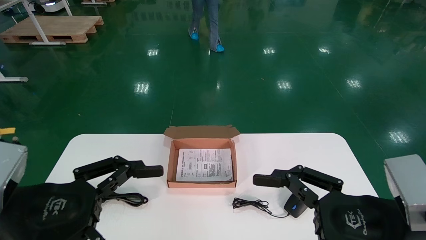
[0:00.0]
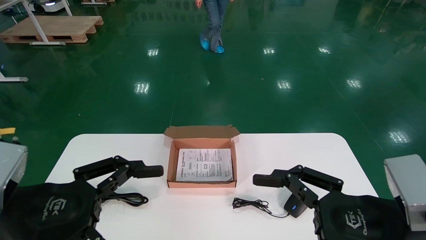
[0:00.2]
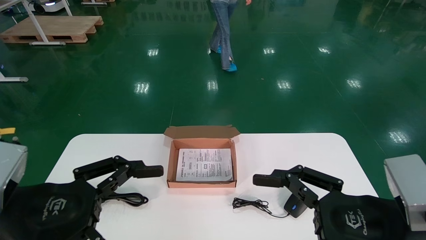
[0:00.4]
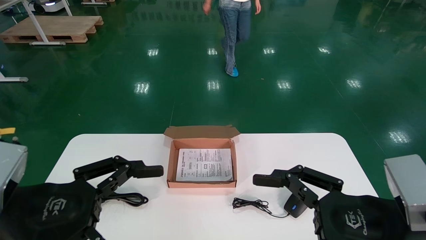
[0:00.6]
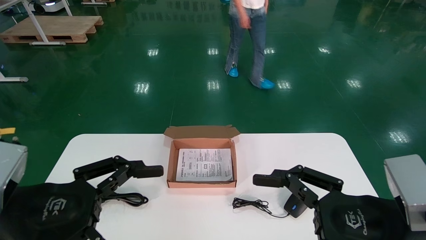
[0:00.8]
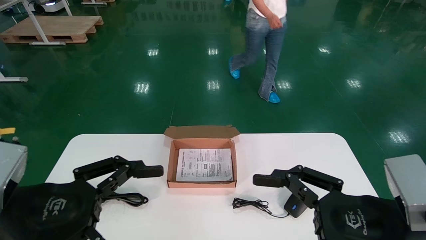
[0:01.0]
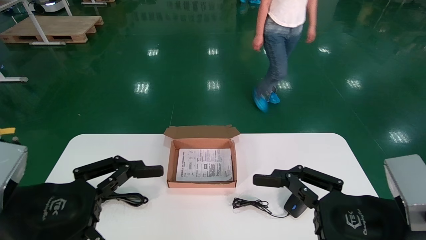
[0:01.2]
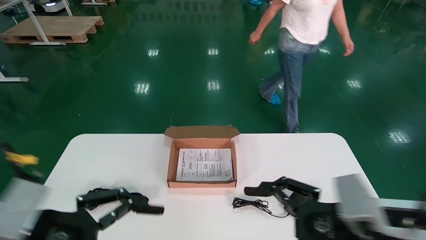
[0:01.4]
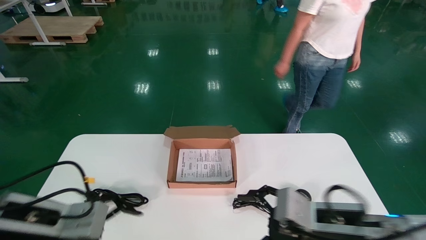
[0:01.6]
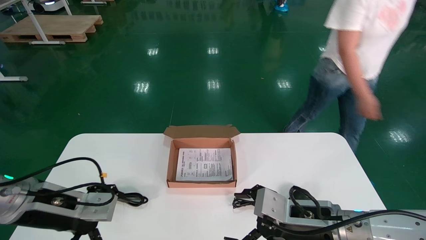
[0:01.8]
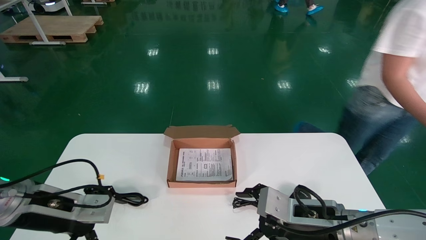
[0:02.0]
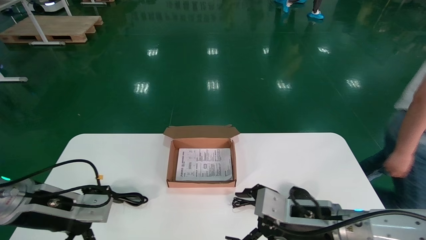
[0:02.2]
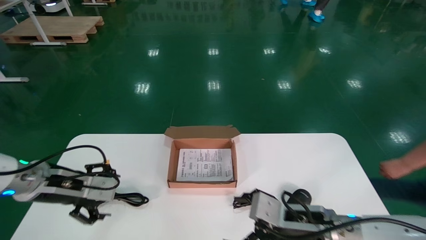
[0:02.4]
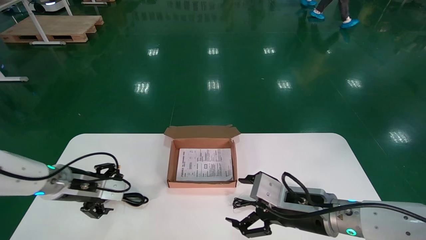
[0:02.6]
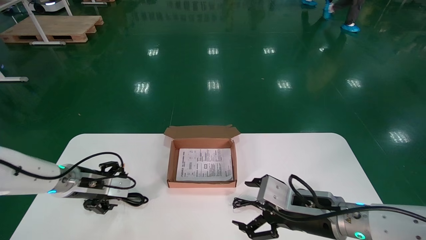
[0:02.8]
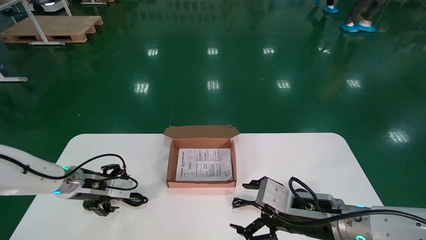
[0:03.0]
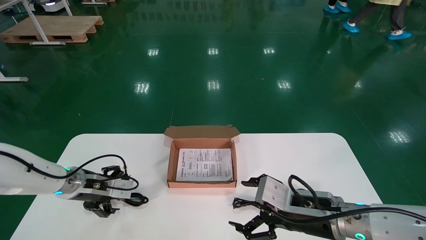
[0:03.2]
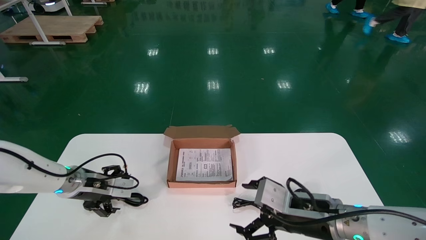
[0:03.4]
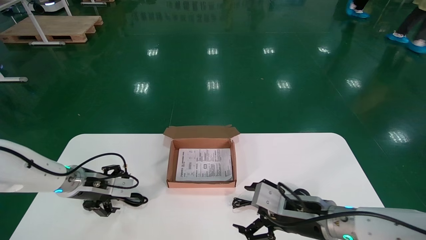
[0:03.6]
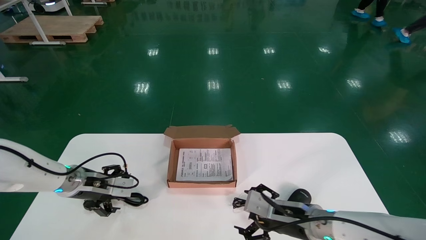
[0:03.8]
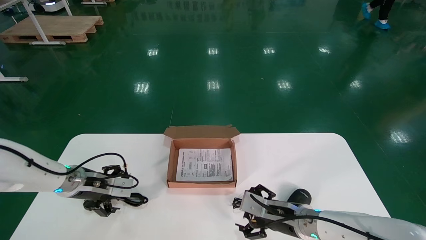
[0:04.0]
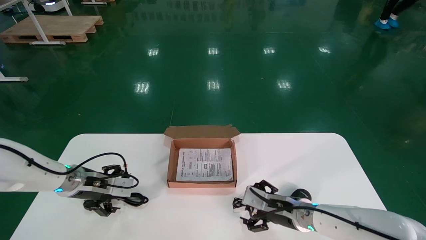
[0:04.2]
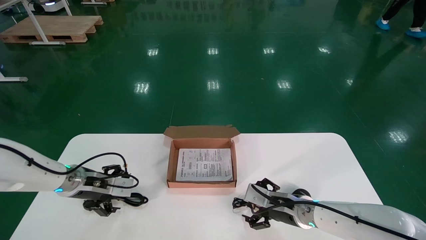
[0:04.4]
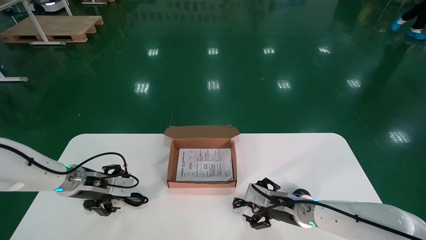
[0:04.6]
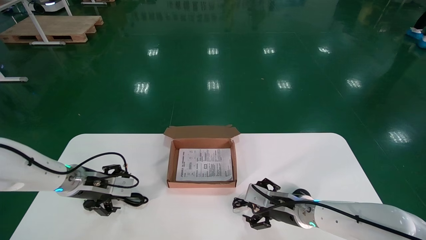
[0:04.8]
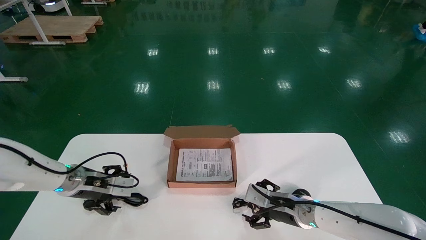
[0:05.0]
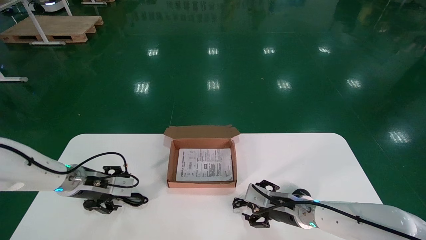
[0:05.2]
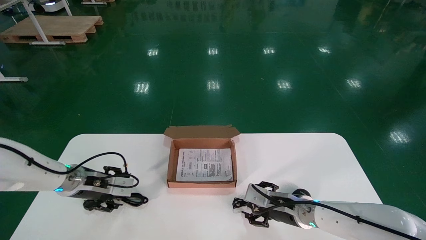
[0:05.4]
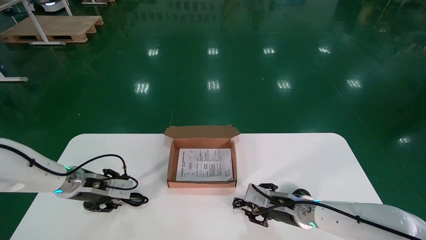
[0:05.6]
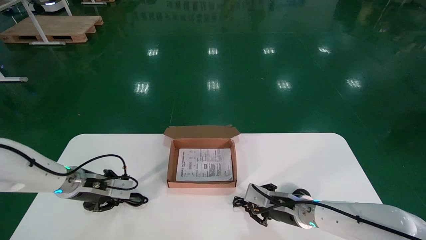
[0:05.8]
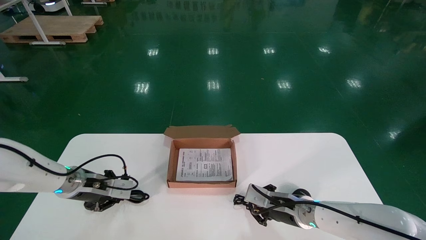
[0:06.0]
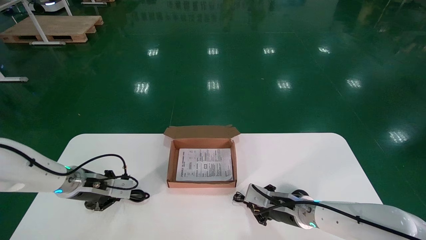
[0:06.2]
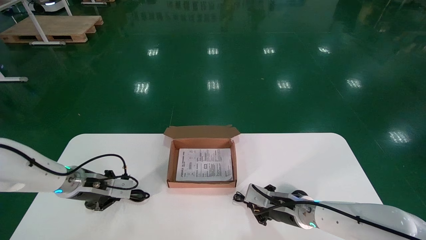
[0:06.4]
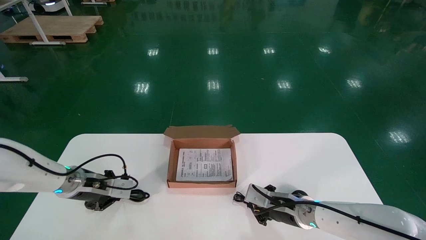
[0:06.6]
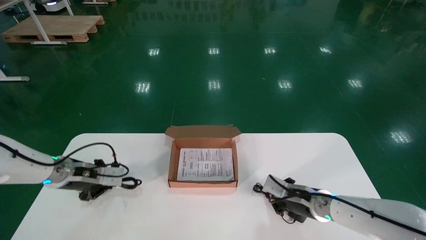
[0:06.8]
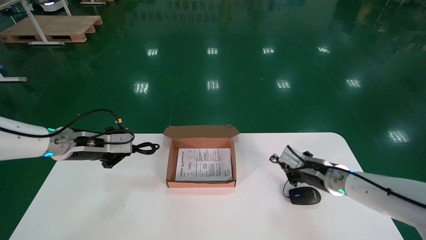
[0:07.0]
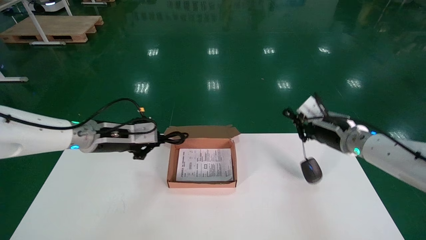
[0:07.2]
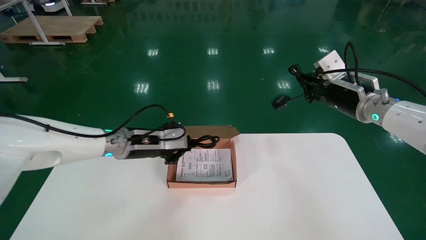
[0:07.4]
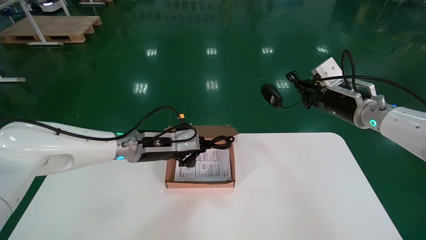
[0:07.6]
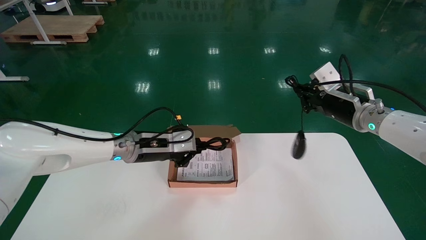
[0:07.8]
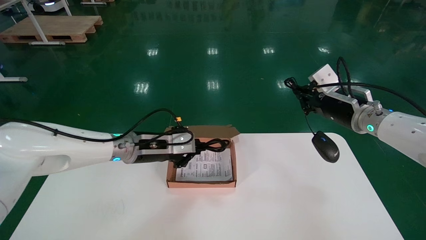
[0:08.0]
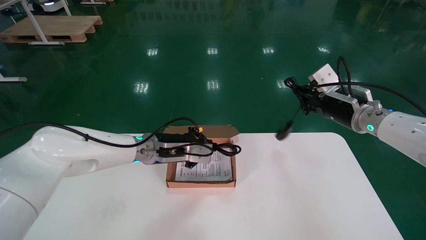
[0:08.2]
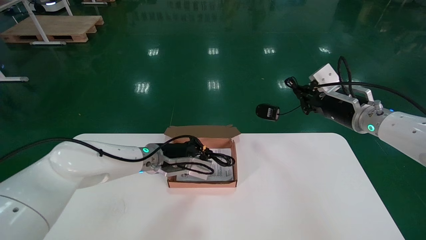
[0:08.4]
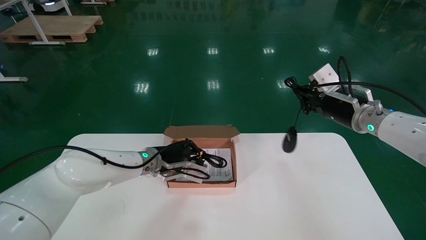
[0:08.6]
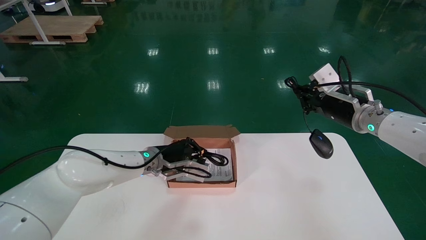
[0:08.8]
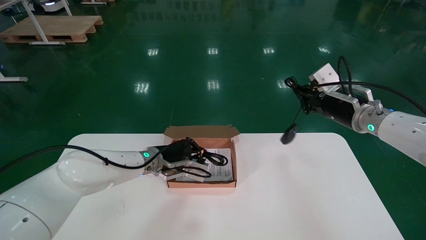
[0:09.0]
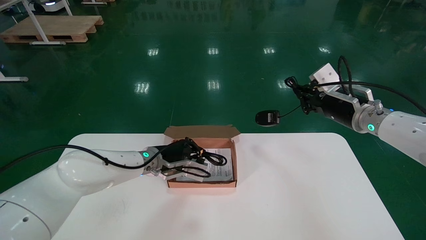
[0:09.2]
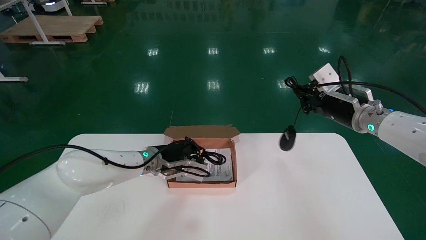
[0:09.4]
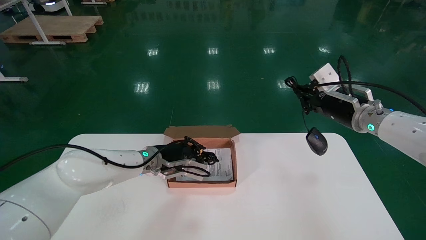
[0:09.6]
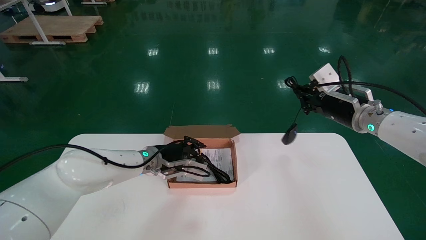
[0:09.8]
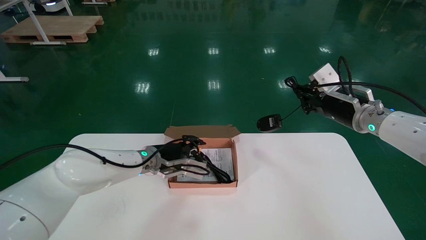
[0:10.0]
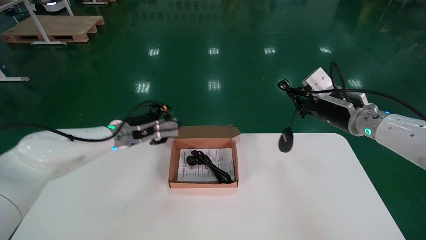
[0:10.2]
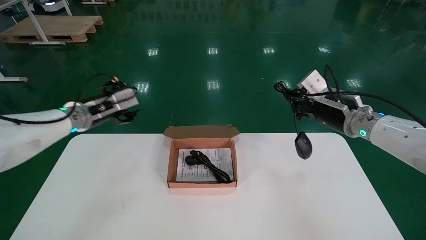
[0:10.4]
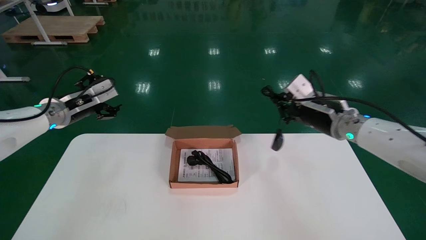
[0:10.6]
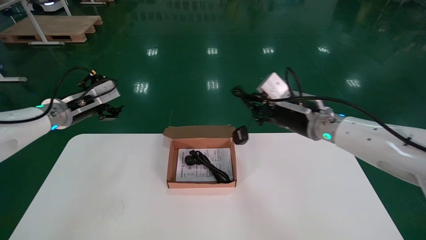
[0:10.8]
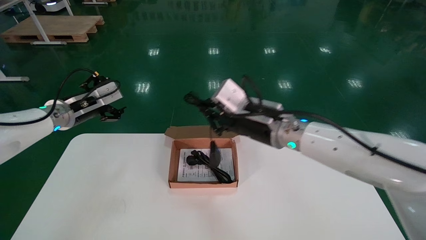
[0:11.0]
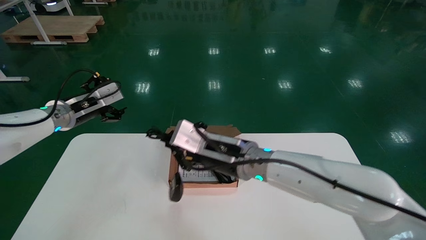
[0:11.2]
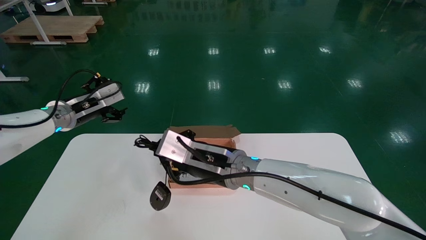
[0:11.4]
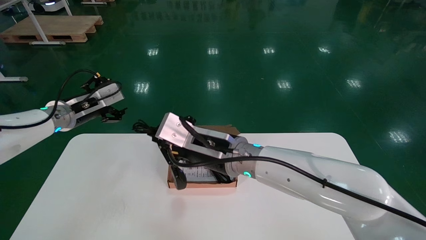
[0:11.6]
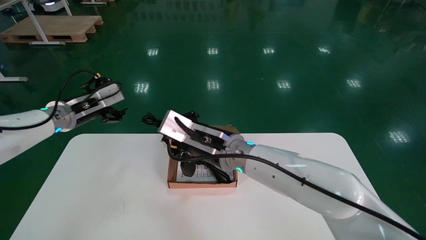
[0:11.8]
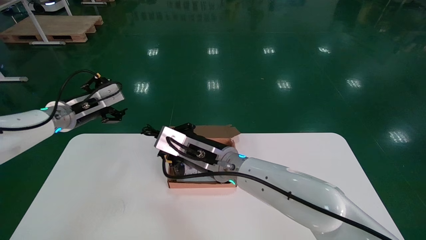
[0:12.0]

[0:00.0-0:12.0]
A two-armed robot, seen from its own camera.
Step, 0:01.6 to 0:06.2: Simultaneously pick up the mouse and power cord from the accessory packaging area.
0:00.0 to 0:01.6: The grippers both shift forward and downward by roughly 10 cm.
0:01.6 to 0:03.0: The left gripper shifts roughly 15 cm forward.
0:03.0 to 0:04.4: The right gripper travels forward and downward by some 15 cm.
0:04.4 to 0:06.0: The left gripper closes its fingers. The right gripper closes its fingers.
0:06.0 to 0:07.6: The left gripper travels to the right and upward by some 15 cm, while the right gripper goes some 25 cm upward and to the right.
0:07.6 to 0:09.0: The left gripper heads downward, covering some 5 cm.
0:09.0 to 0:10.4: The left gripper moves to the left and upward, some 20 cm, and opens its fingers.
0:10.4 to 0:12.0: The right gripper travels to the left by about 25 cm.

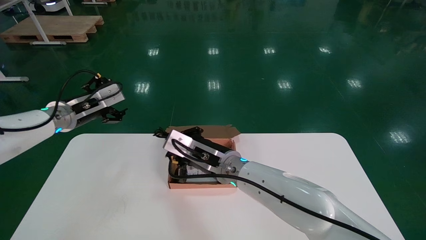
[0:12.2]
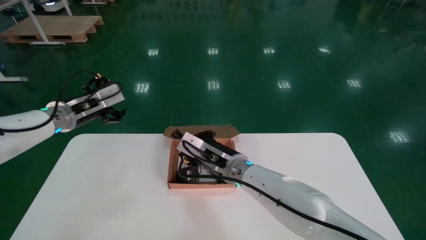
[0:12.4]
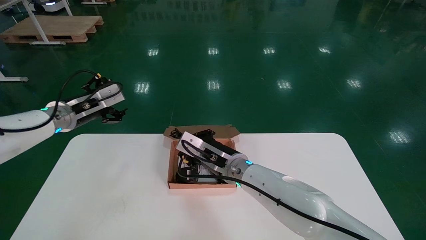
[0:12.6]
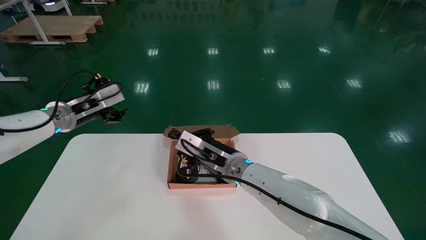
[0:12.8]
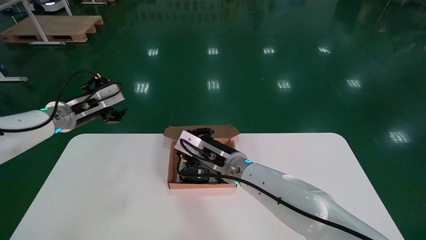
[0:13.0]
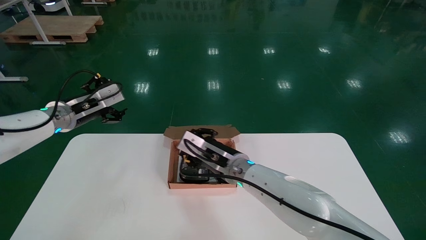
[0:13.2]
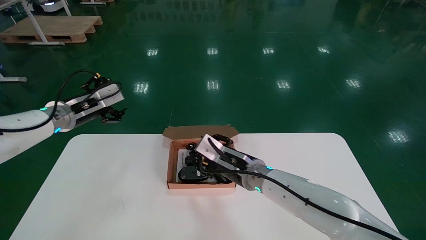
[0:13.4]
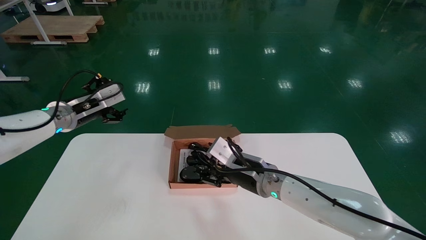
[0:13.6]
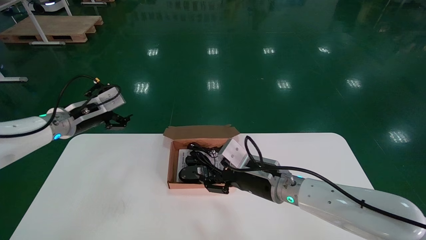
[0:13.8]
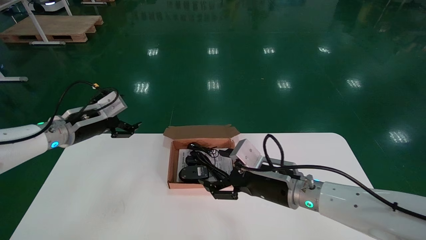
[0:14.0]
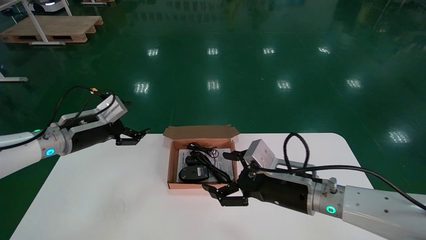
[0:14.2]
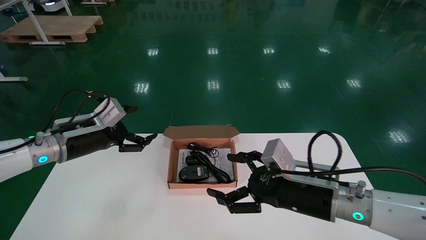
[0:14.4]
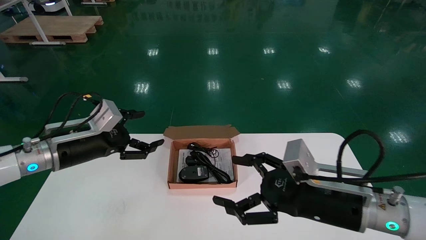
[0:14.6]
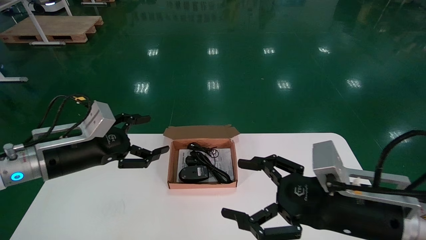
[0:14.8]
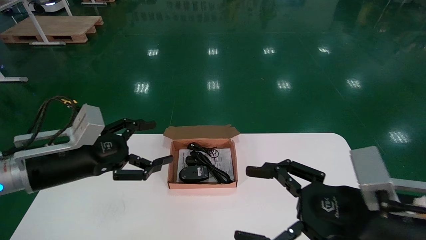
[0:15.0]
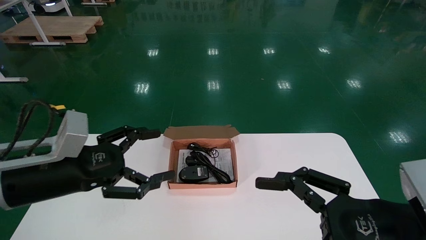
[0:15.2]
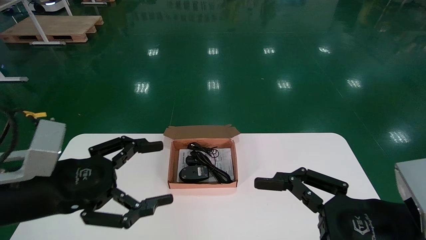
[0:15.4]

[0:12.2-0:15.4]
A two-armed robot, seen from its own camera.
0:12.2 to 0:13.8: The right gripper is displaced to the right by some 10 cm, and opens its fingers.
0:13.8 to 0:15.4: The left gripper is displaced backward by about 20 cm; the right gripper is displaced backward and to the right by approximately 25 cm.
